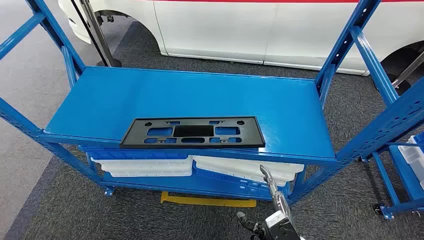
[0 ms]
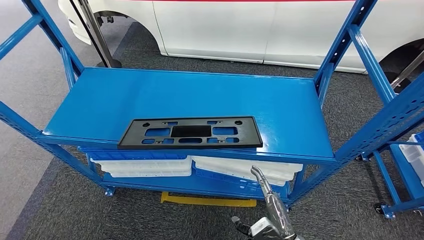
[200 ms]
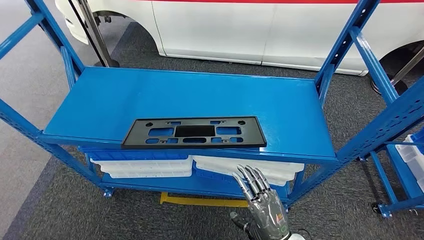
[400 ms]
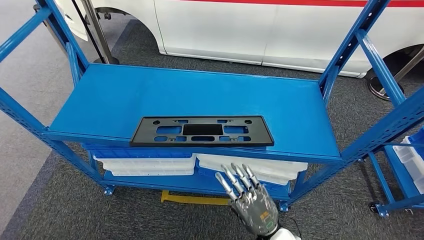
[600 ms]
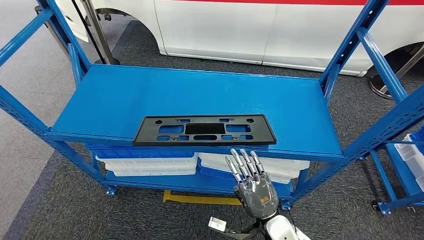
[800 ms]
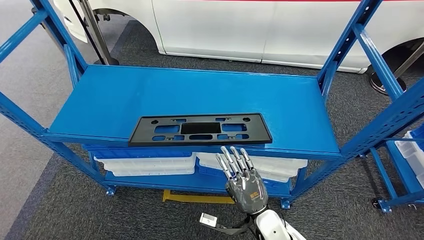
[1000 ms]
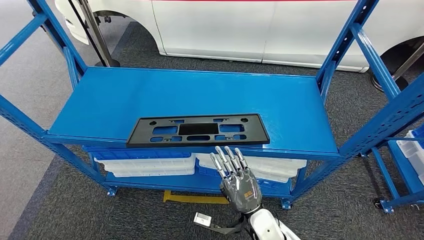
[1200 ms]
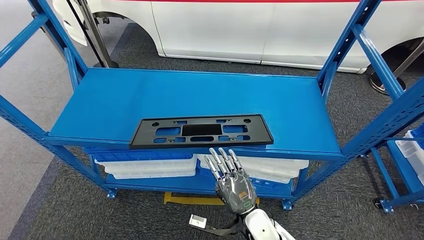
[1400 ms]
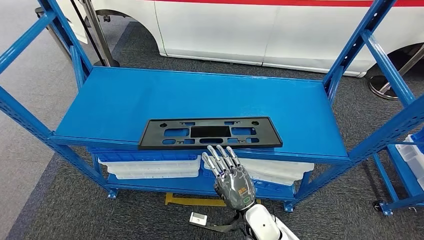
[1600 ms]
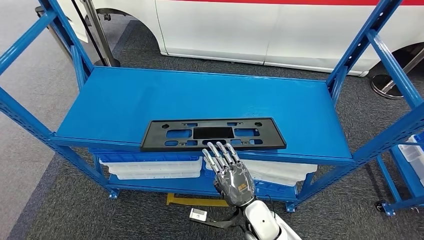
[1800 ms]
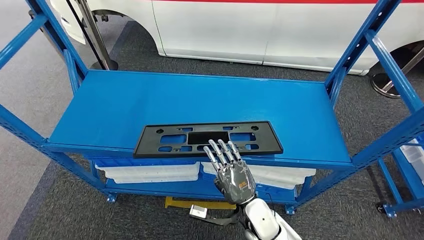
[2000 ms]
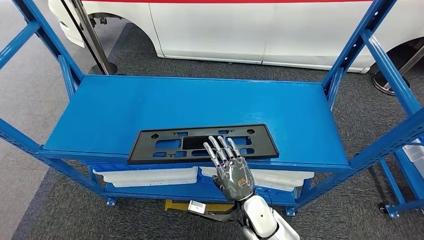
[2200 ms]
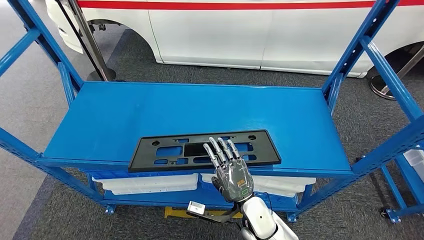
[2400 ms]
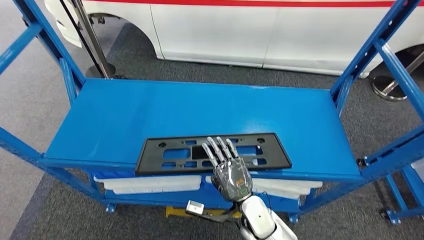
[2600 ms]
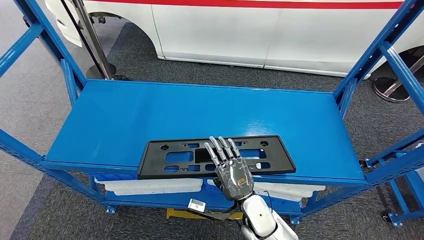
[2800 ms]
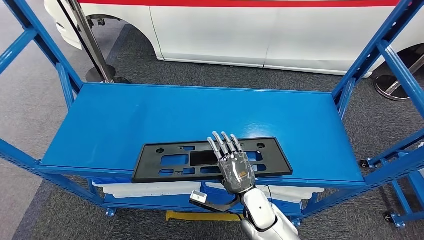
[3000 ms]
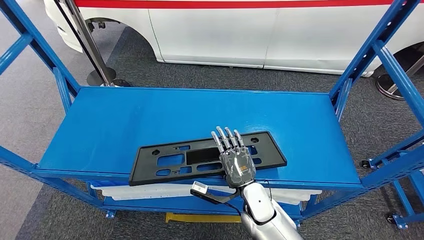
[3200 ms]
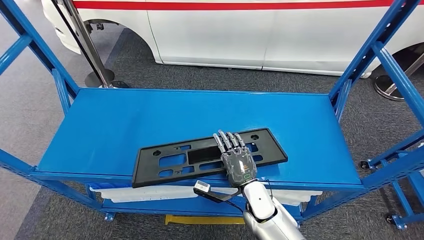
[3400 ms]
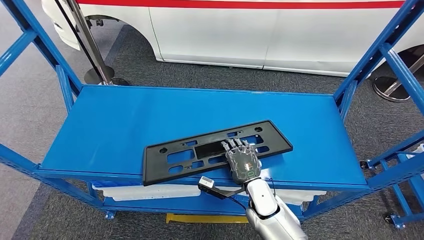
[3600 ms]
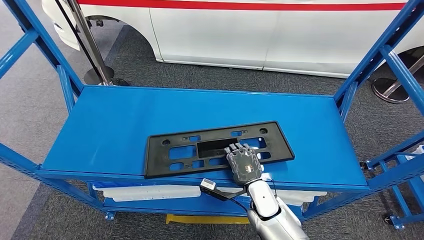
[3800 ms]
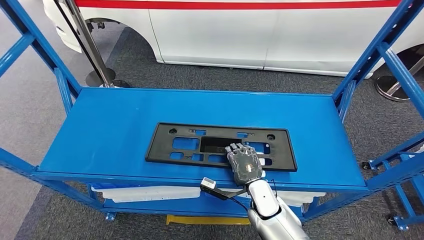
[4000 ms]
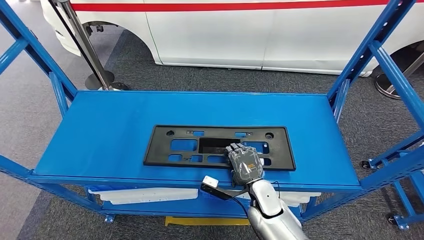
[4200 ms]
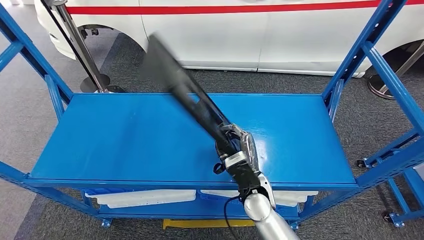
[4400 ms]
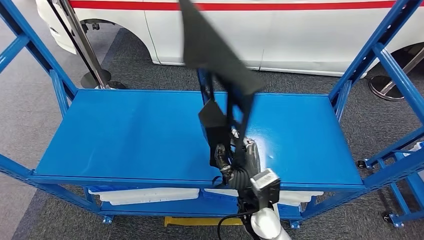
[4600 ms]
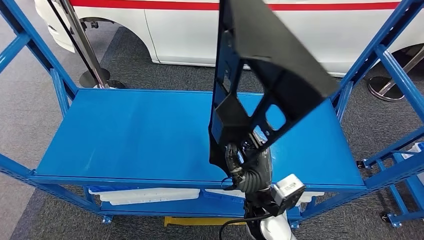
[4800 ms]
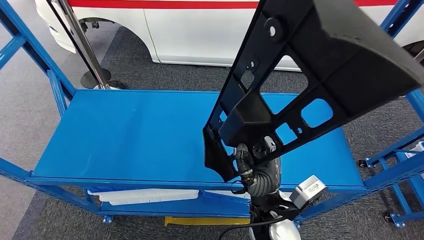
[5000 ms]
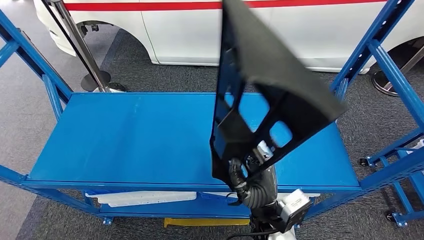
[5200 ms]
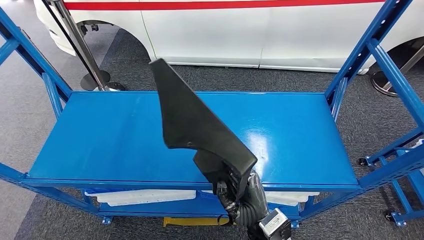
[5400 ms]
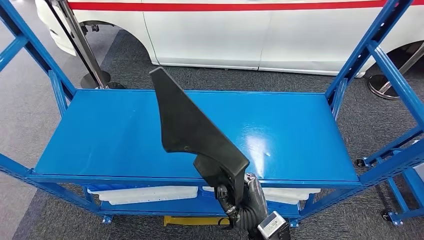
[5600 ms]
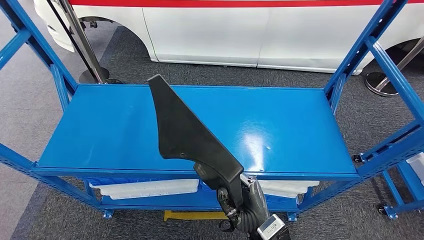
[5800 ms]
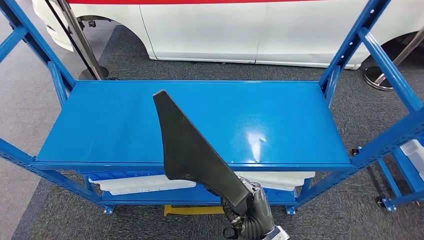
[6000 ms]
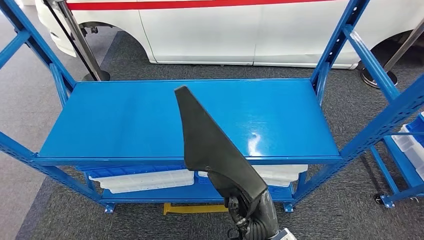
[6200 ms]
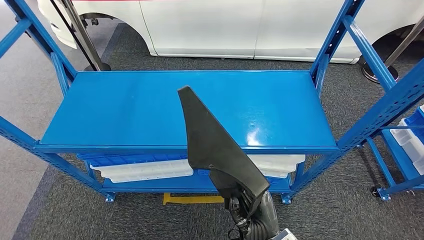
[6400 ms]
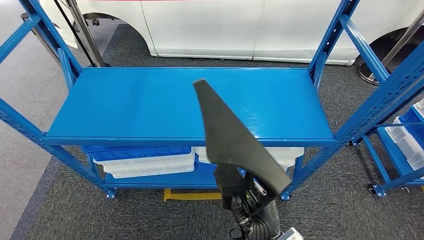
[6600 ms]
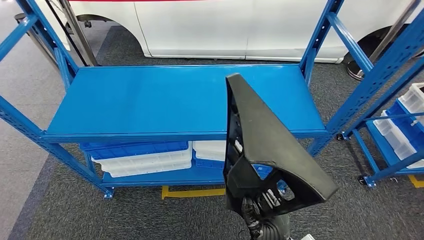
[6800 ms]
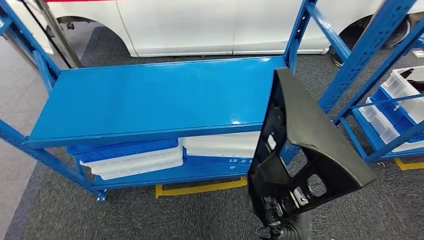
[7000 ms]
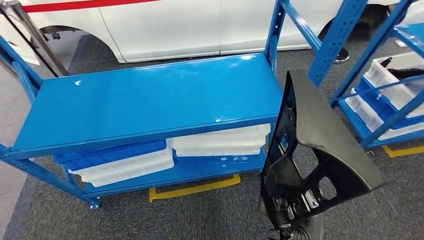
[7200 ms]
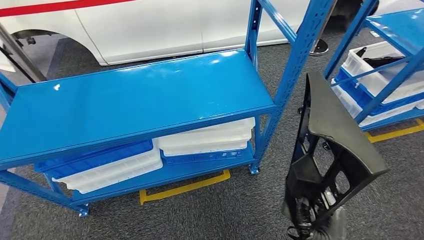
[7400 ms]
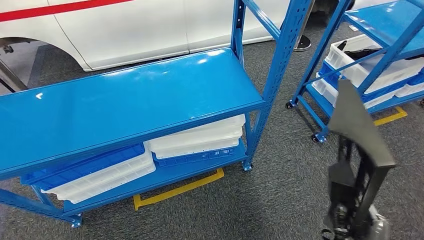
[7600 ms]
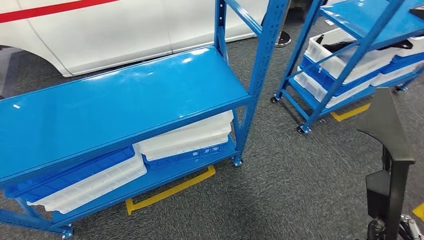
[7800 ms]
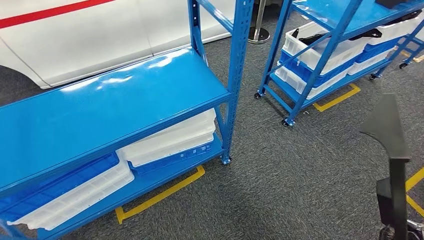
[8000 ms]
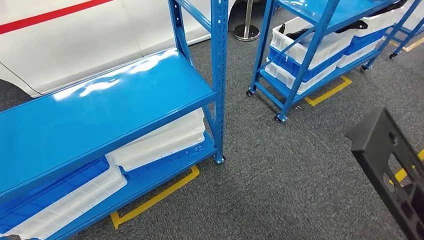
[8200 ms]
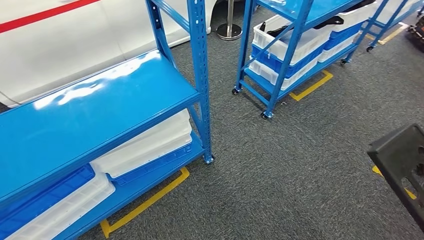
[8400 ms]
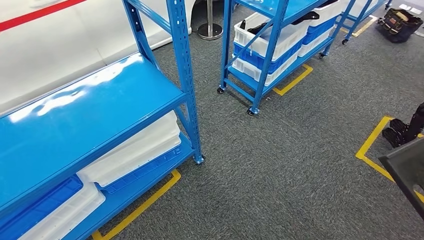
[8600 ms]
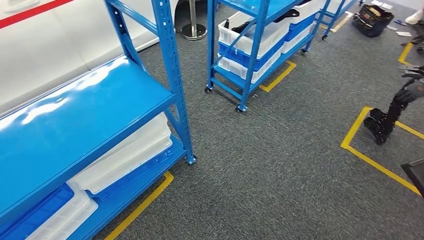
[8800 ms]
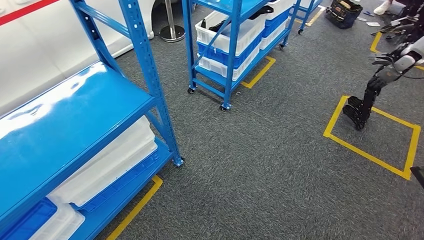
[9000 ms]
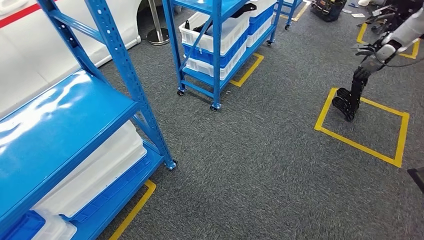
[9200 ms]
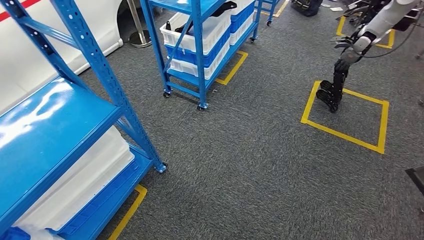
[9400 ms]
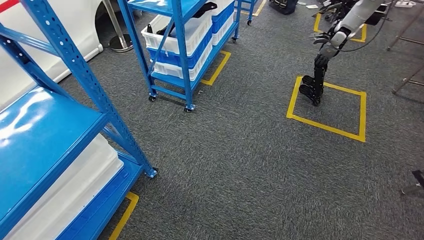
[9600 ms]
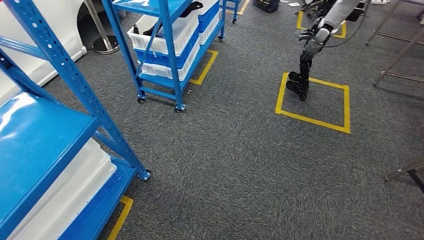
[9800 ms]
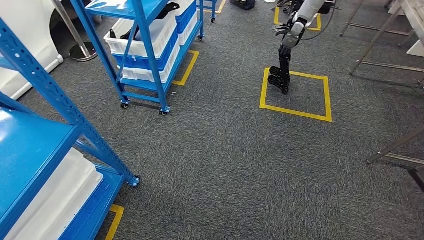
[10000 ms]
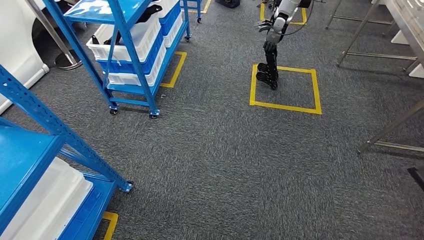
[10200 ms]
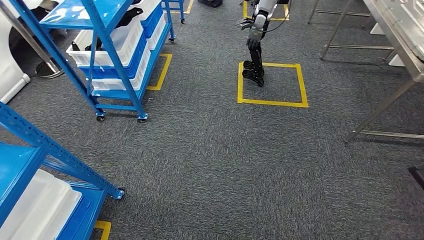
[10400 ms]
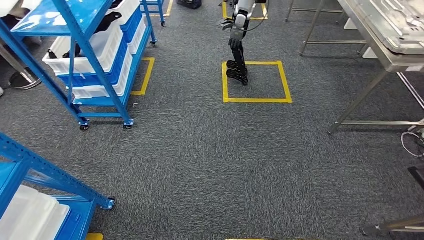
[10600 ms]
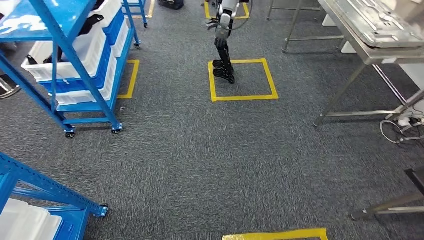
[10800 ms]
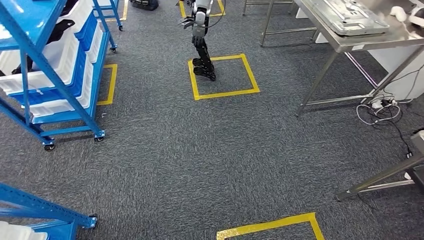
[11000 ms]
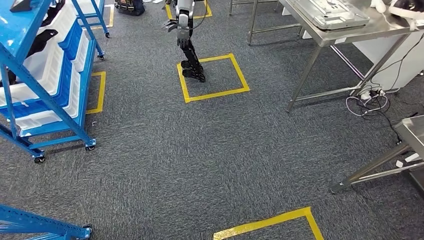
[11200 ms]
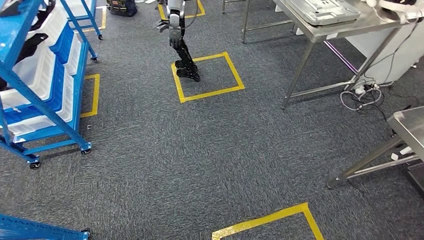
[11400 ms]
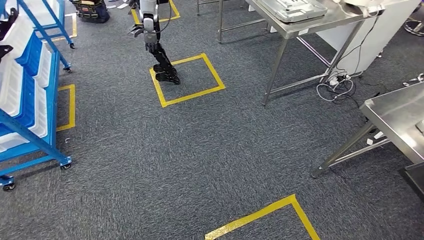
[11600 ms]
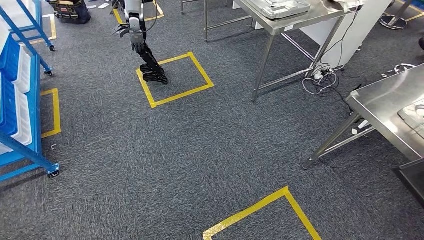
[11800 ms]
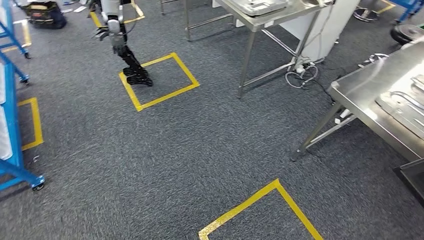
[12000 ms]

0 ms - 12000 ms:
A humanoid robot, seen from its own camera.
Step, 0 ms - 6000 ms: Pick up the large material from the shelf.

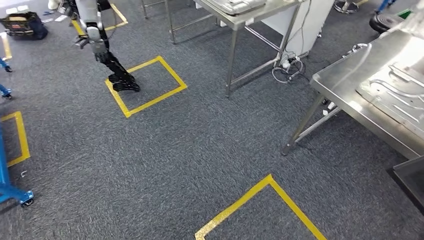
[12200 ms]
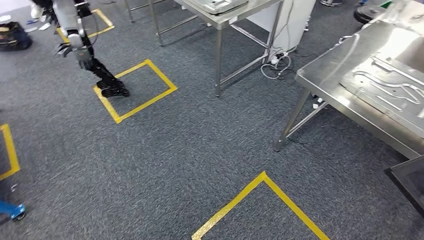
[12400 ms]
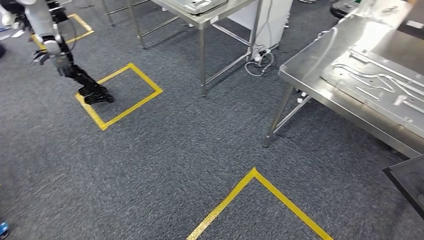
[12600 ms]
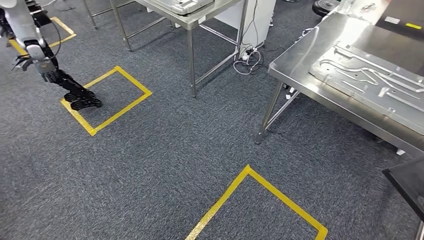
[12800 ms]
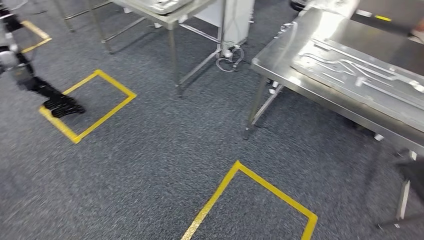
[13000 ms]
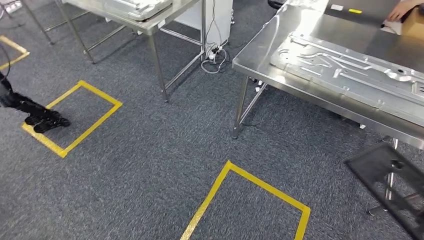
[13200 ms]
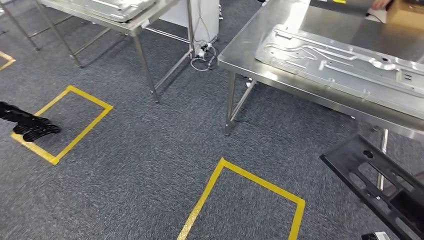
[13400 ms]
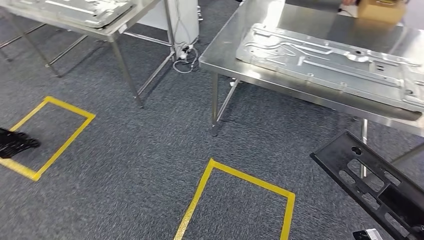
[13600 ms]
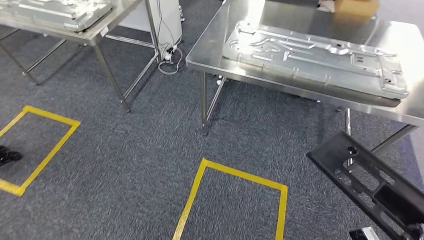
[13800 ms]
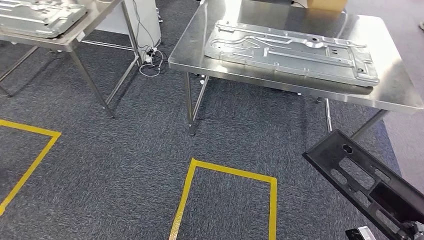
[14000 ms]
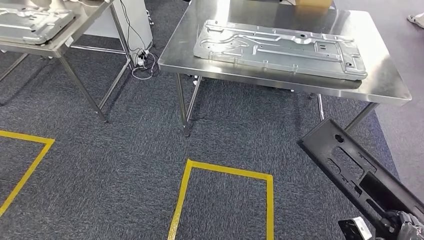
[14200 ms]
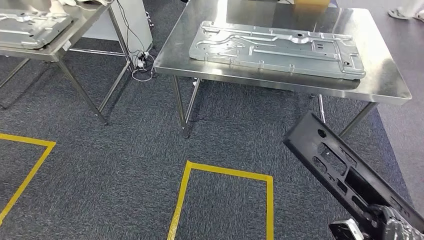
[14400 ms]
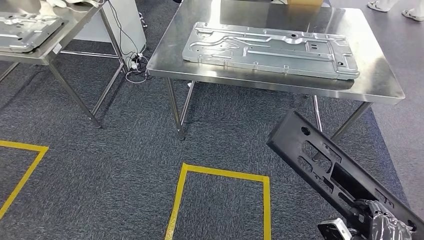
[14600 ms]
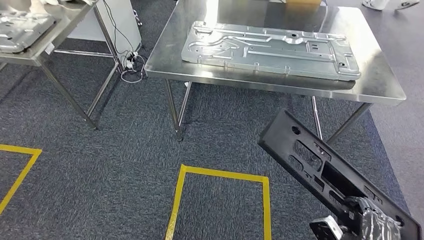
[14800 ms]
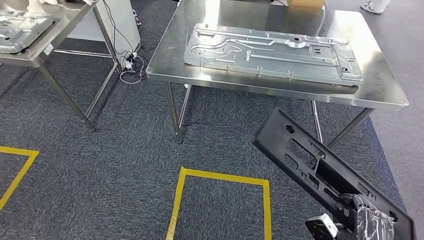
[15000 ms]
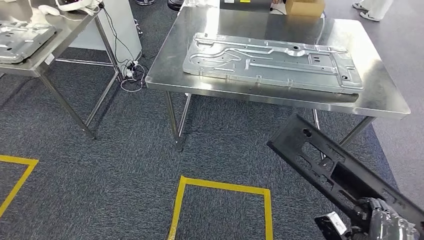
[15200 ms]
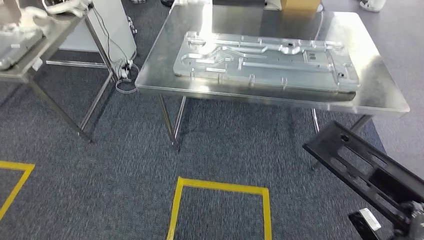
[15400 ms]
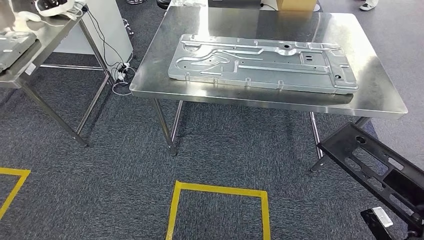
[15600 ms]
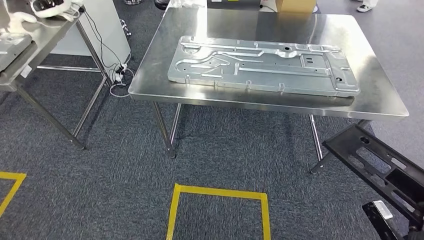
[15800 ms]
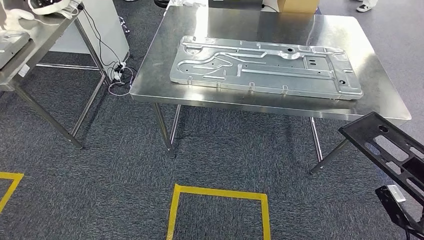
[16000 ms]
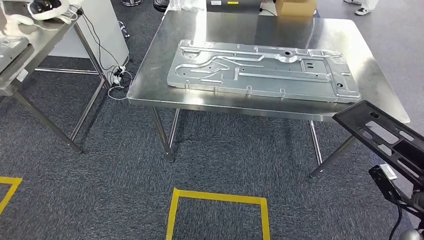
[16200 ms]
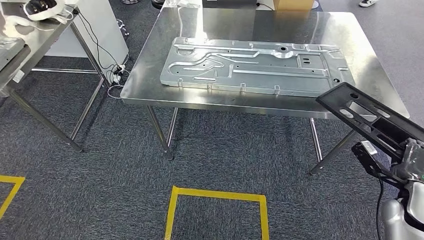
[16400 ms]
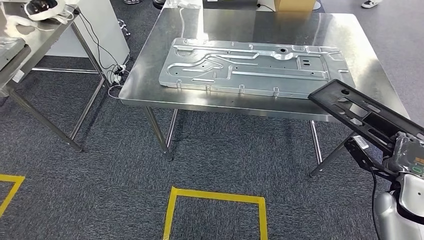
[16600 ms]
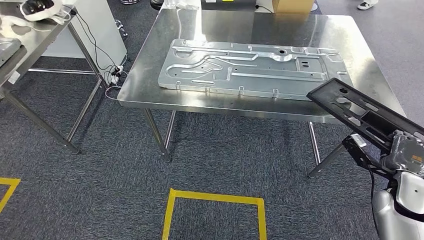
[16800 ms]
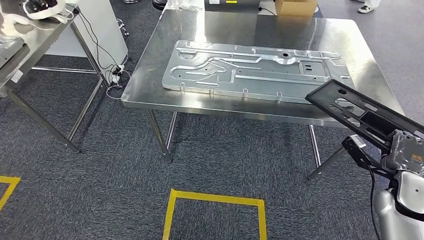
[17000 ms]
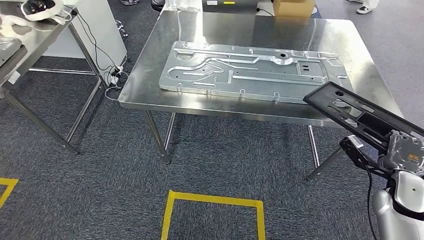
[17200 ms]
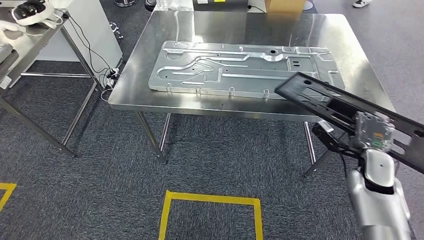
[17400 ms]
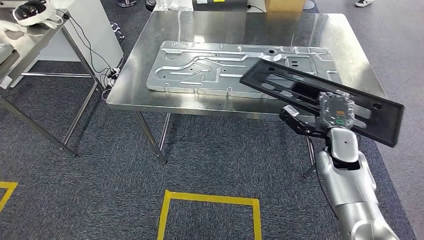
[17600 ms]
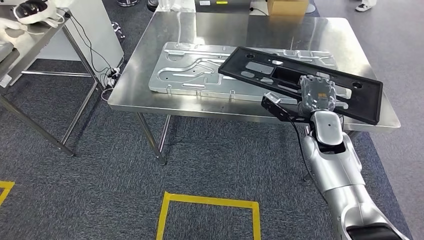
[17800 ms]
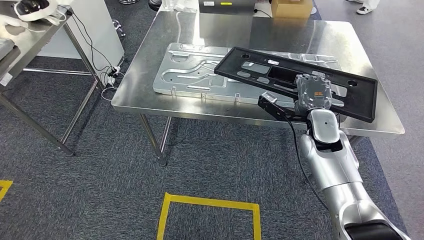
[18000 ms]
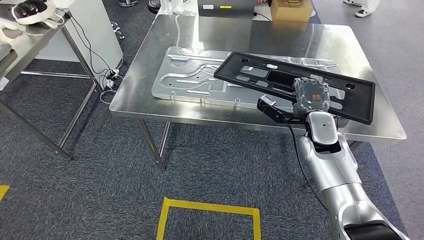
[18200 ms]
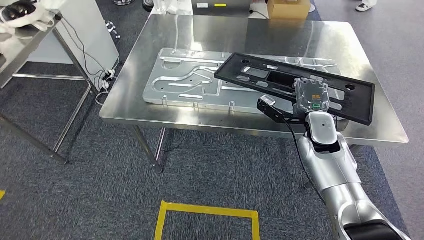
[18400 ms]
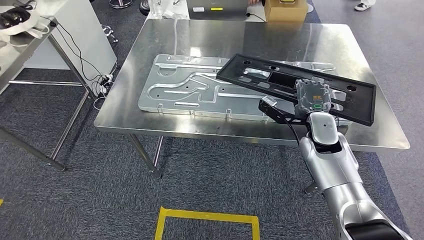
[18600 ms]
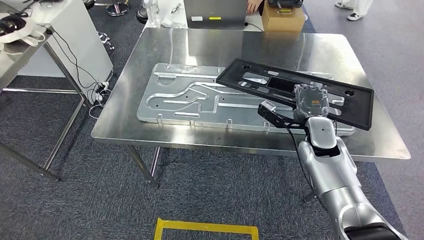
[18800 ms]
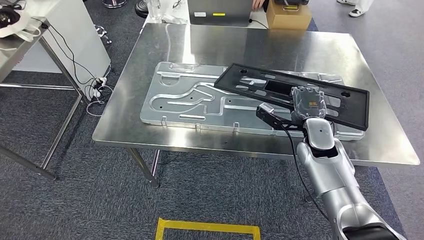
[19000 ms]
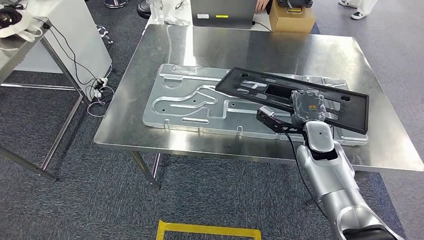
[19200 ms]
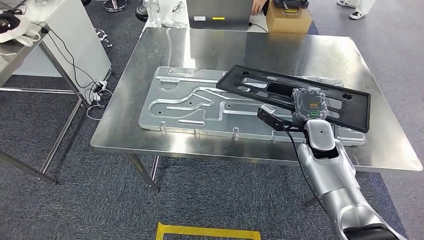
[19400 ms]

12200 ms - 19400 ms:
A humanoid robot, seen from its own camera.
Step, 12200 ms - 18200 ms: Move the large material to the workbench.
